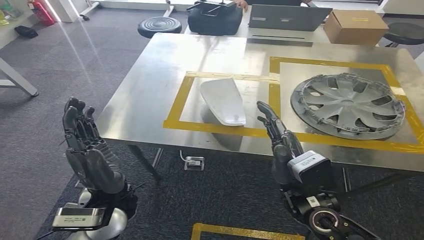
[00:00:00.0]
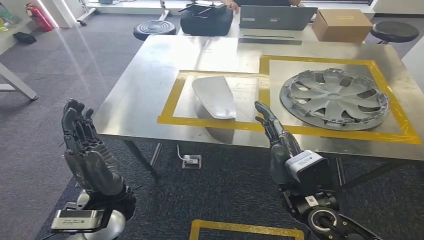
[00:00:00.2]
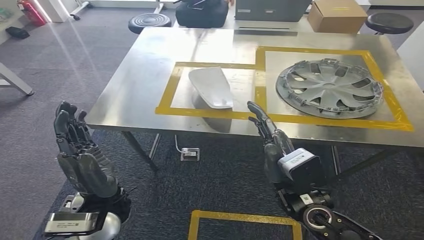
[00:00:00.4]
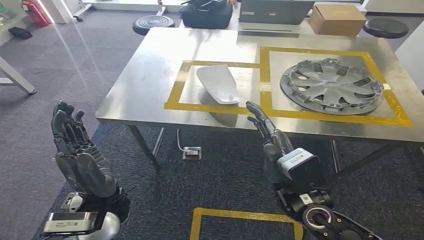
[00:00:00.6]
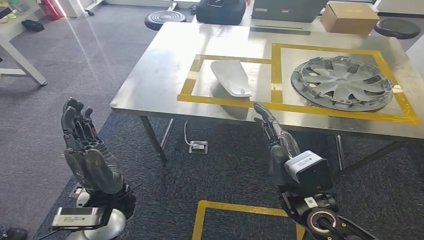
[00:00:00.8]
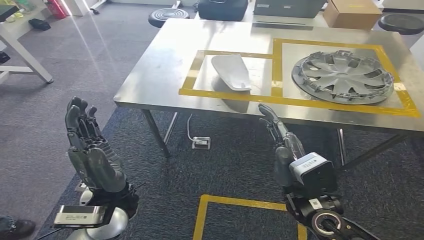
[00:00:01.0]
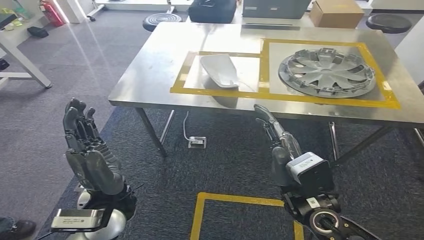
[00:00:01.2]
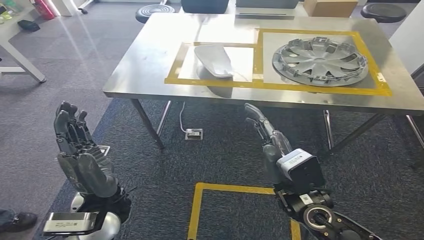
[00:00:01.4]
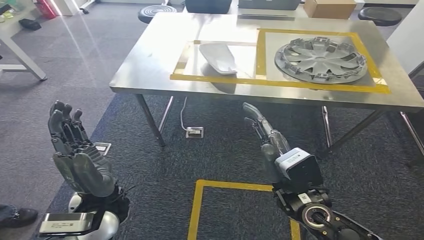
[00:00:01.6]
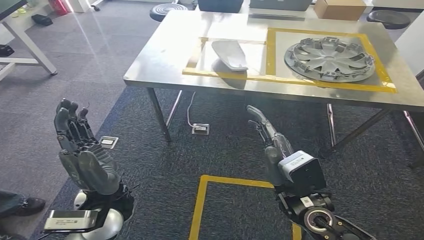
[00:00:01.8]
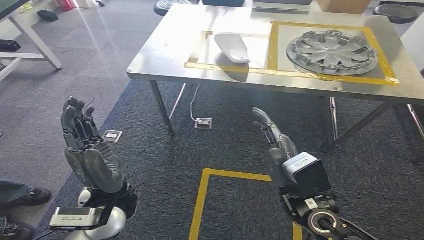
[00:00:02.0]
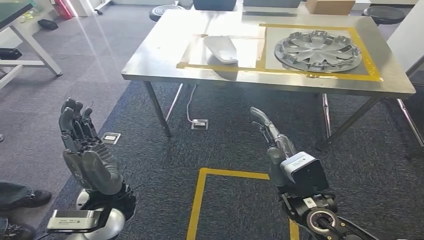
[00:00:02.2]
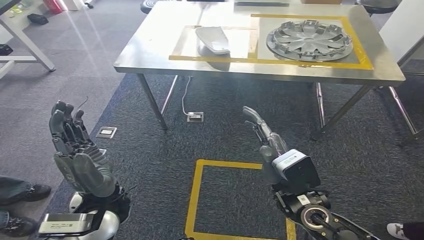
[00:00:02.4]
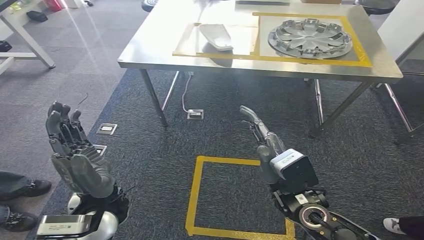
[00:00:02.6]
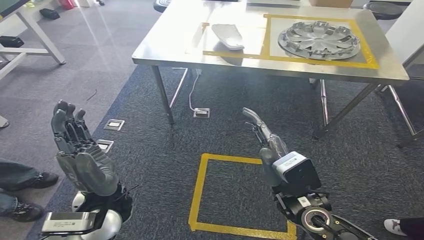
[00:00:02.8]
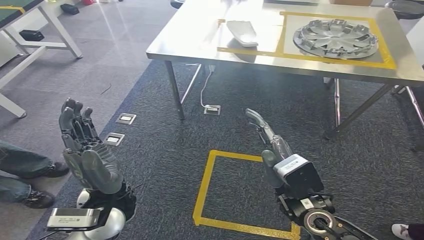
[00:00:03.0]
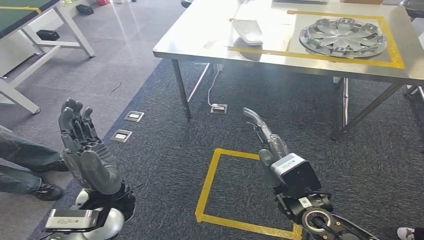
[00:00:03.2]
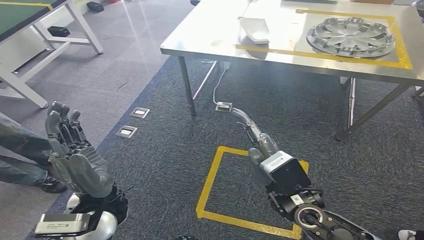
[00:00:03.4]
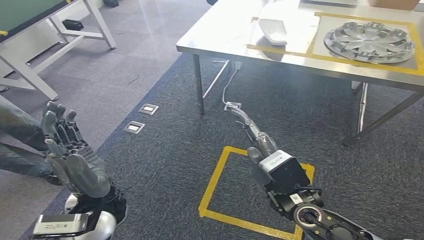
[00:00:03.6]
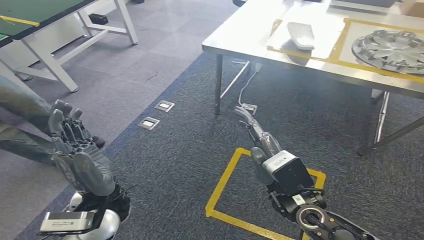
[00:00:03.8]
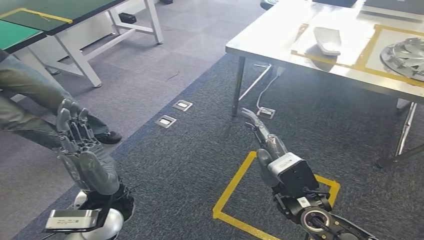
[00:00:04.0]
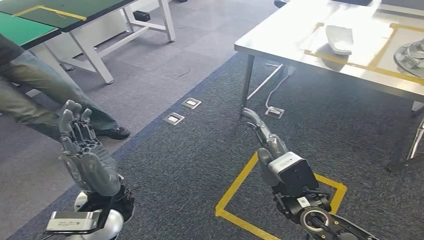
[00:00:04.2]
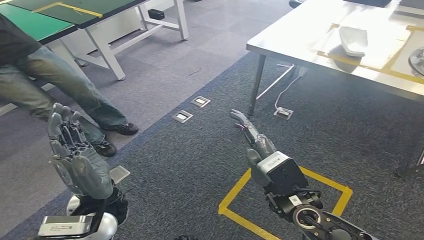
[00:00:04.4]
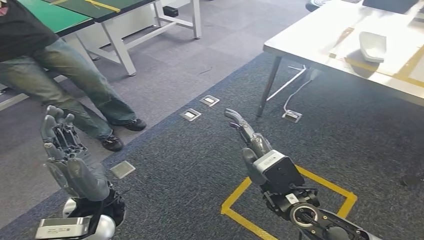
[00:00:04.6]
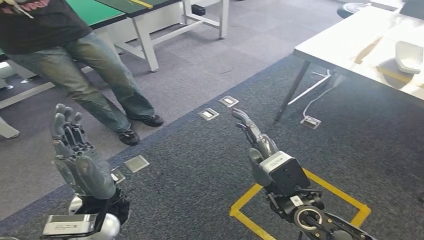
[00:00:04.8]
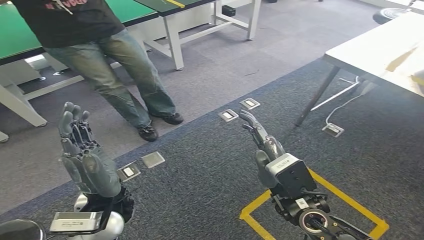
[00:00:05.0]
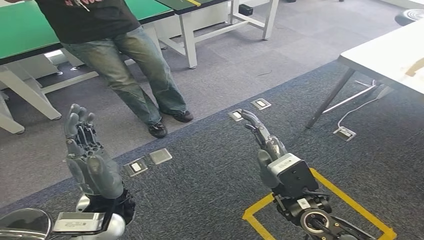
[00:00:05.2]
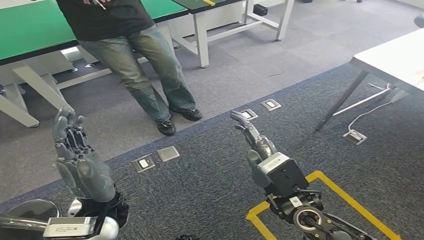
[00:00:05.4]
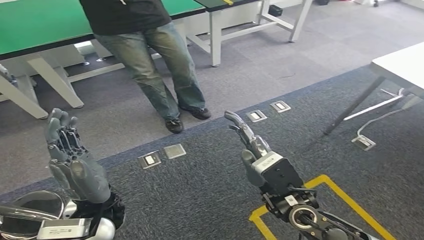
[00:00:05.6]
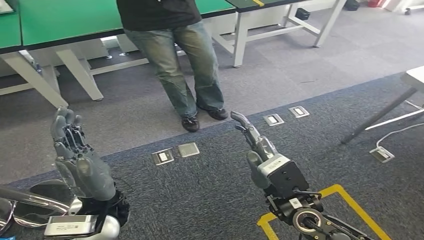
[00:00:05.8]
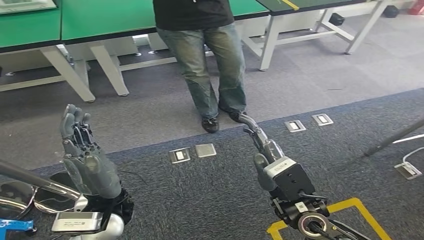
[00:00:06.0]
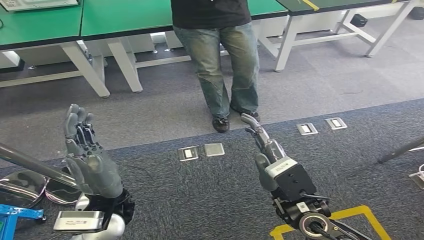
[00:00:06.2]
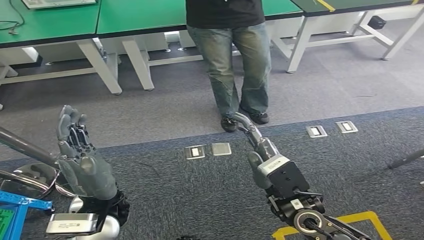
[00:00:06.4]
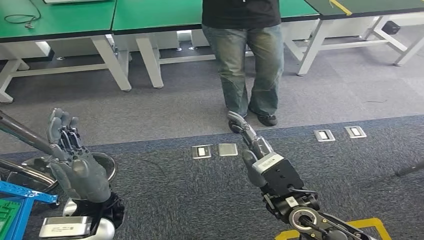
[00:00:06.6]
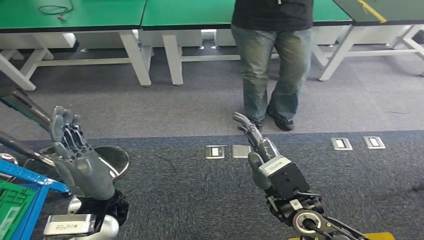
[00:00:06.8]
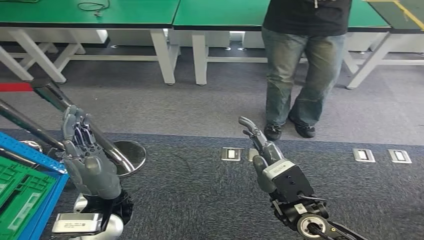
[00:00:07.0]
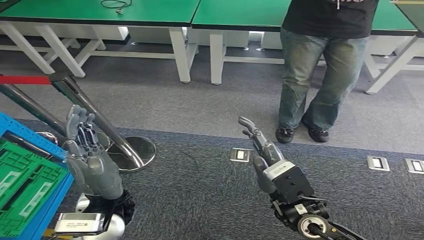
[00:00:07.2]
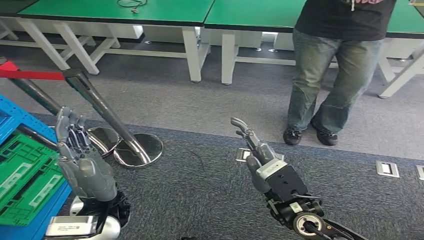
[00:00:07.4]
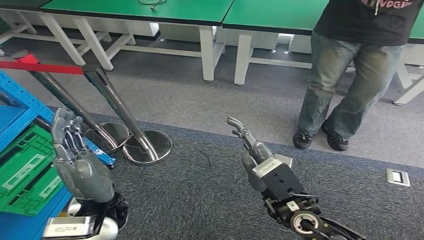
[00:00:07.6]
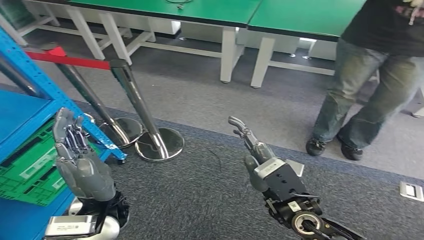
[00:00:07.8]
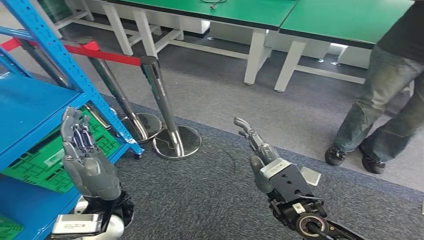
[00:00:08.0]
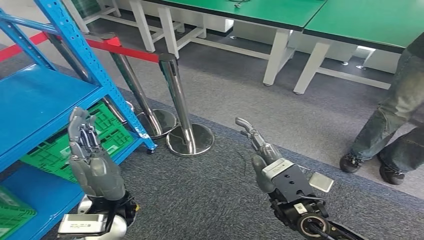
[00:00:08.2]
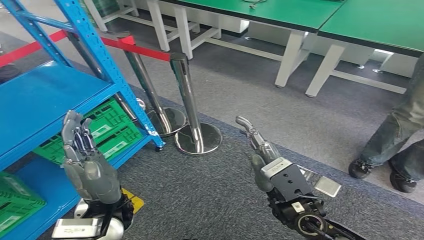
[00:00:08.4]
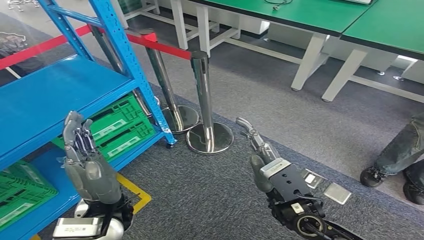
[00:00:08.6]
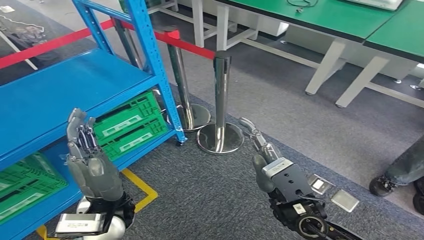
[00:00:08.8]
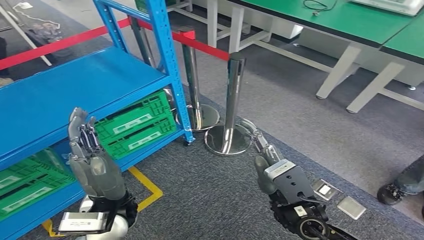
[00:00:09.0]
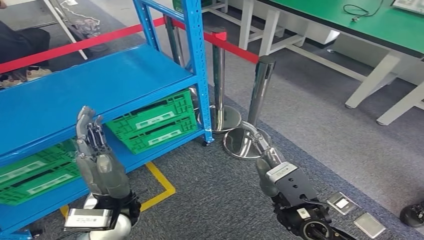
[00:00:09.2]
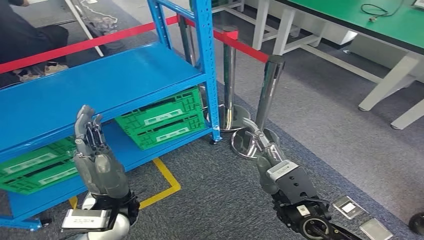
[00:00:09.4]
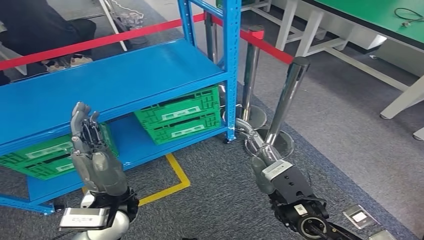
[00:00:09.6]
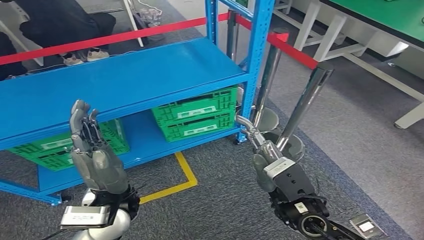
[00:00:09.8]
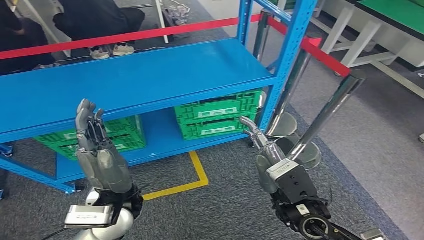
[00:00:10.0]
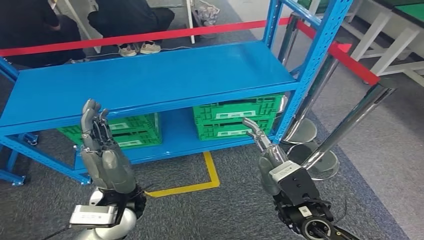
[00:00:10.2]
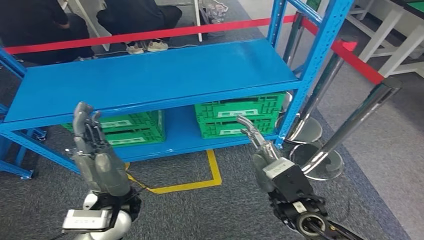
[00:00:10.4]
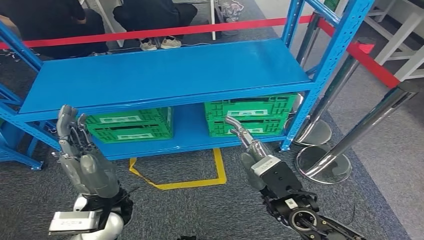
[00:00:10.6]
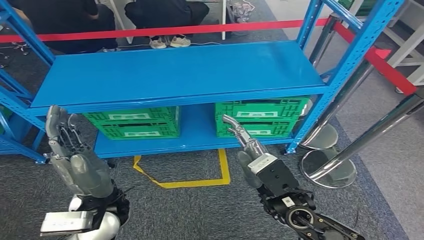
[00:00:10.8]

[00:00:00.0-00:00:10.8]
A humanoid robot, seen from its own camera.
Step, 00:00:00.0 to 00:00:10.8: Move to the initial position of the workbench.
